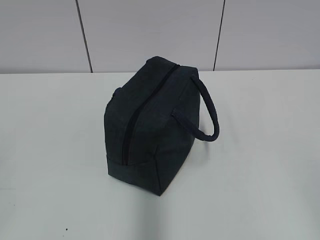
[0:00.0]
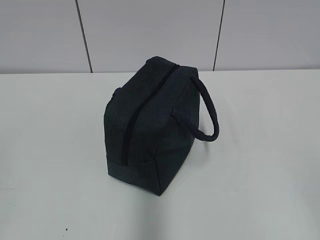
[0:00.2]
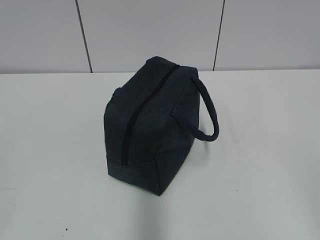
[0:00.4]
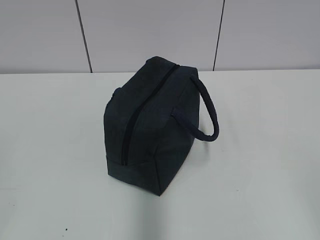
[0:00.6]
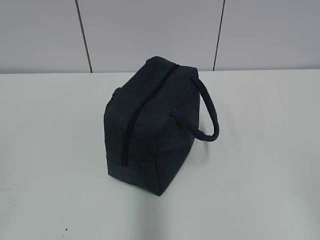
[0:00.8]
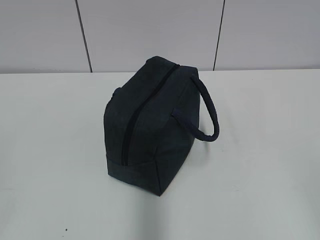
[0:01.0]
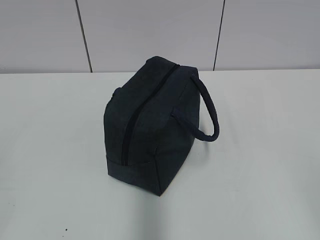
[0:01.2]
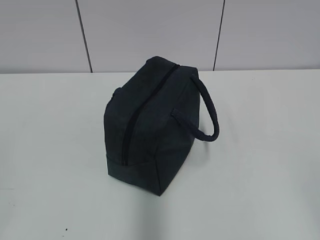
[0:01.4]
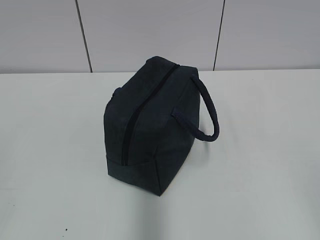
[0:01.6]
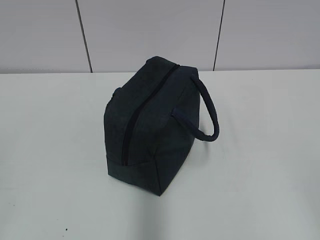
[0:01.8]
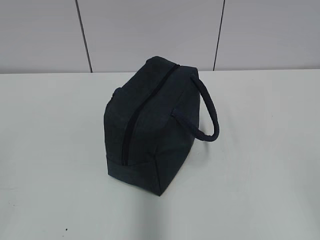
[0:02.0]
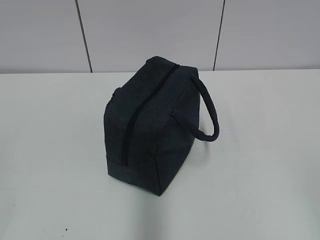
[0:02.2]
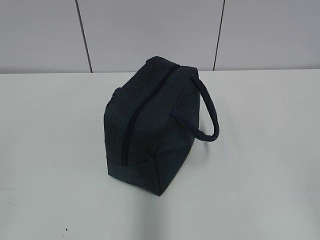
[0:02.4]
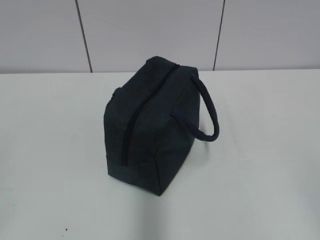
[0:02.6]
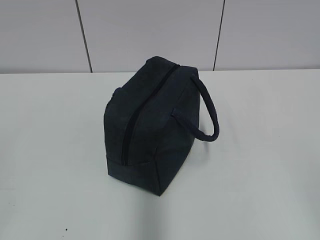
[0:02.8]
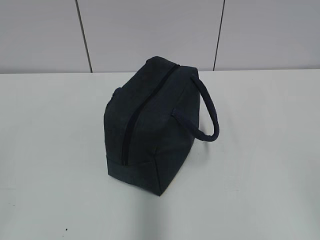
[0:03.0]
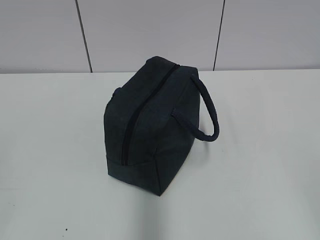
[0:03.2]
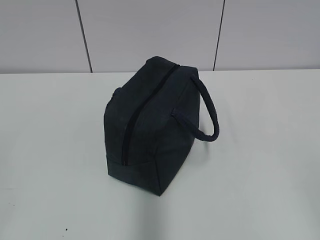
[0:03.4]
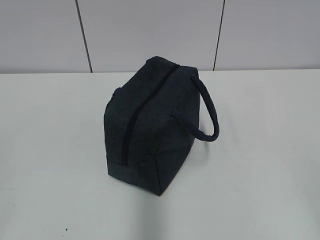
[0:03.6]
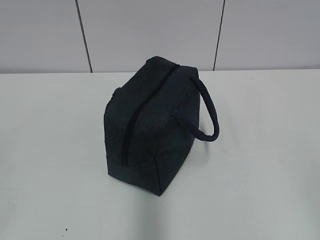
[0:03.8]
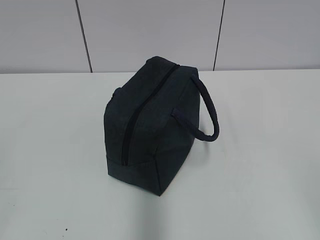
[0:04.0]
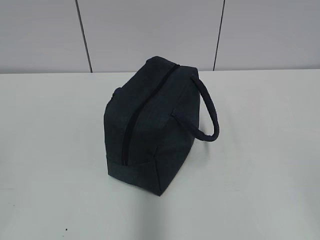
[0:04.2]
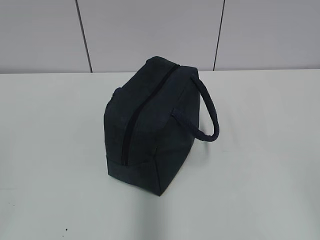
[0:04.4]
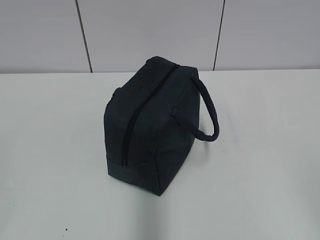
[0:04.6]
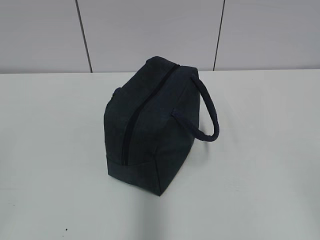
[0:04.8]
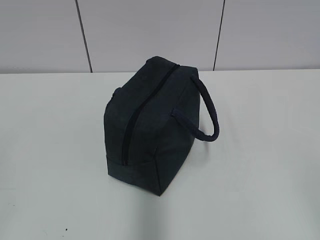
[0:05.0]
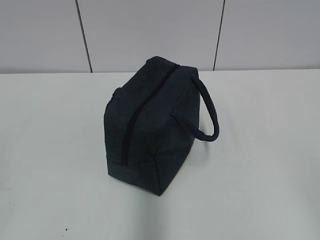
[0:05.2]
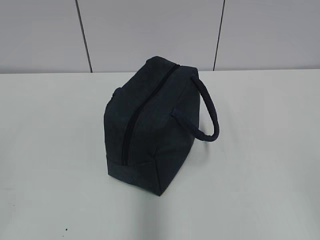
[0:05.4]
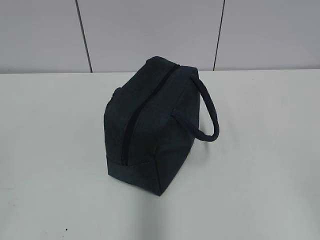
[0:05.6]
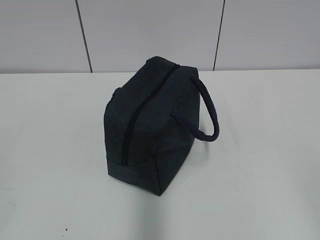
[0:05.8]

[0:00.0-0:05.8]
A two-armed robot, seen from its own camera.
0:01.4 to 0:05.8: Both grippers stay about where they are.
